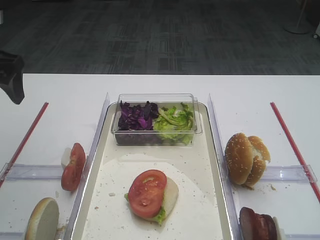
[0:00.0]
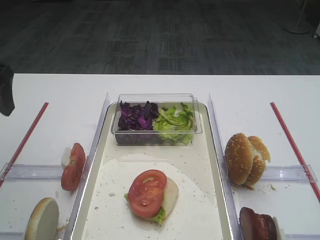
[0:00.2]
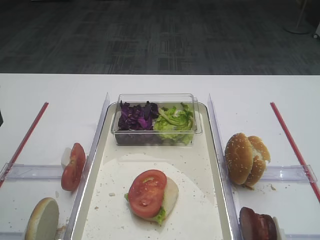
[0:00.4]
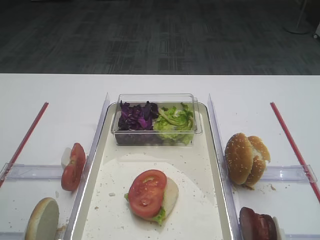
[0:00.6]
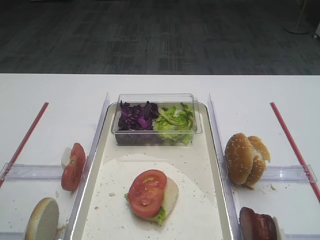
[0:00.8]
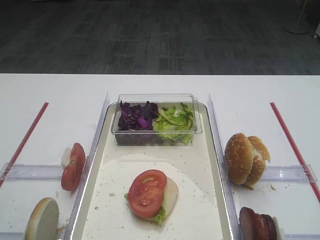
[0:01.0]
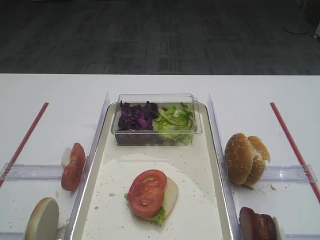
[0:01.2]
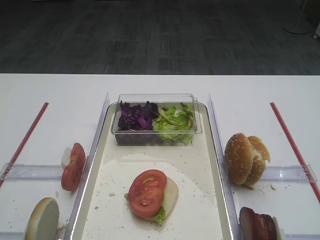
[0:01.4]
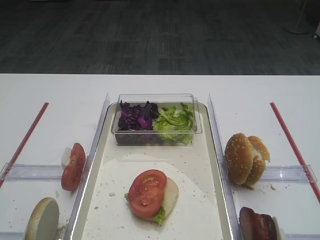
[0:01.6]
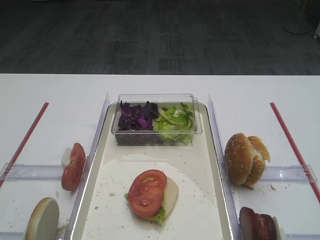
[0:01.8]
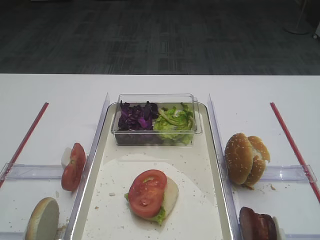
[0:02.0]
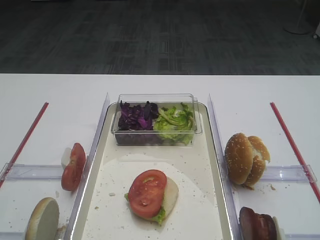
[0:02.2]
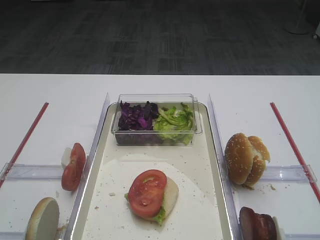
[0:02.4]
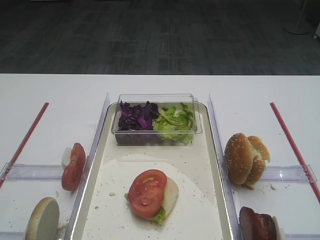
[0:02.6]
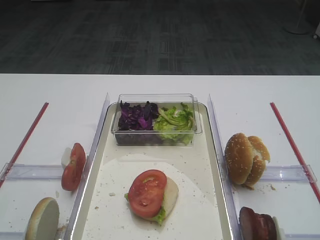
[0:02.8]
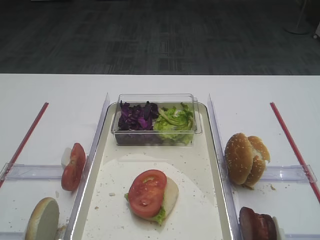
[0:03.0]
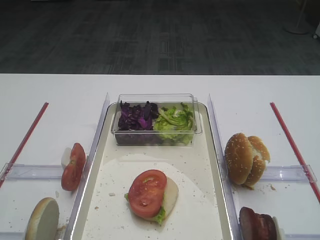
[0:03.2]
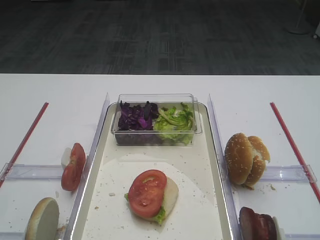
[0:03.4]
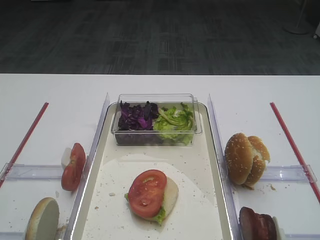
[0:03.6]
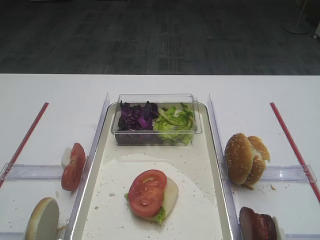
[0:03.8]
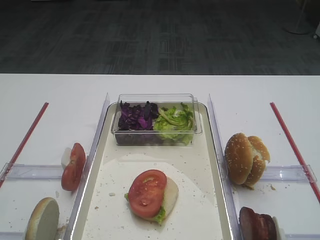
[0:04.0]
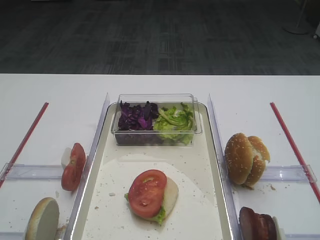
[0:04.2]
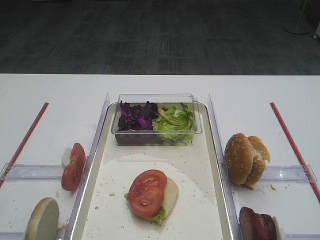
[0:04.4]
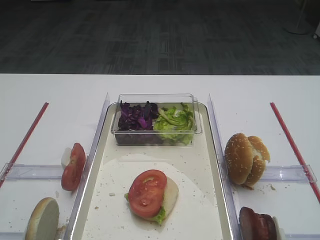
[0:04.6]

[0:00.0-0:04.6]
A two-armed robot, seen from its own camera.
0:00.0 to 0:01.6: The left gripper goes about 30 cm backward.
0:03.0 to 0:04.6: Both grippers stay put.
